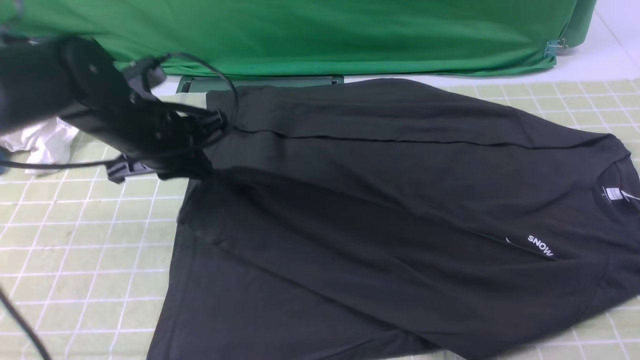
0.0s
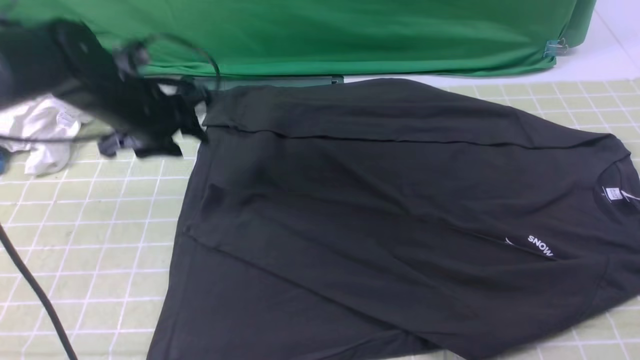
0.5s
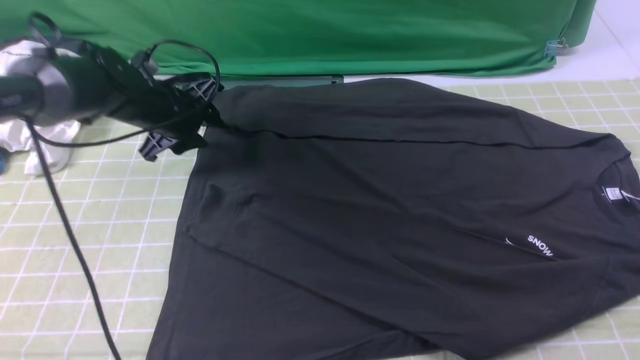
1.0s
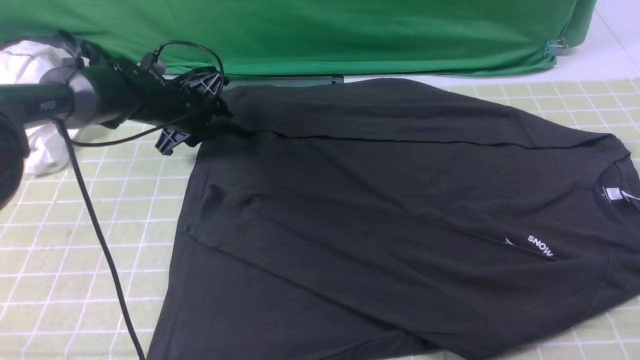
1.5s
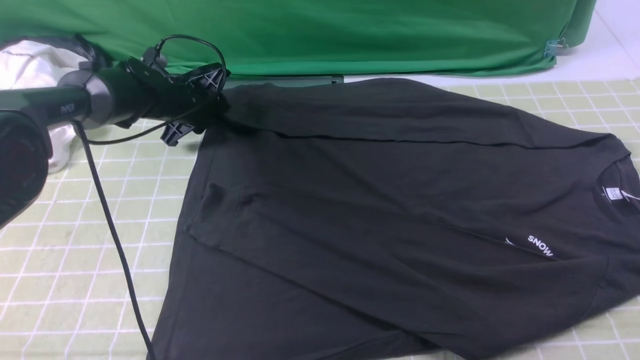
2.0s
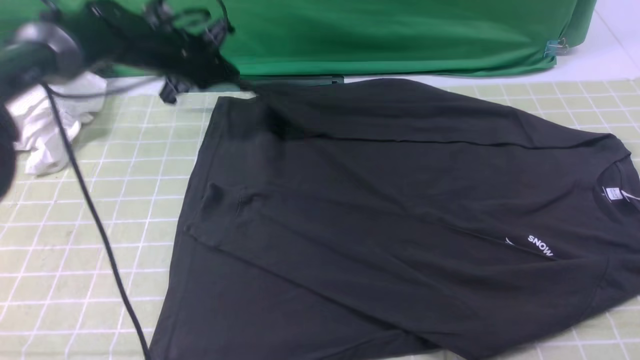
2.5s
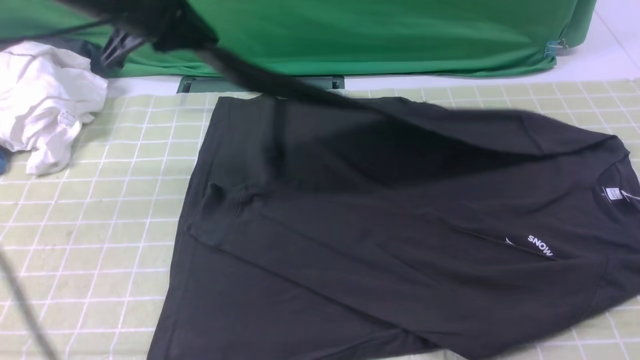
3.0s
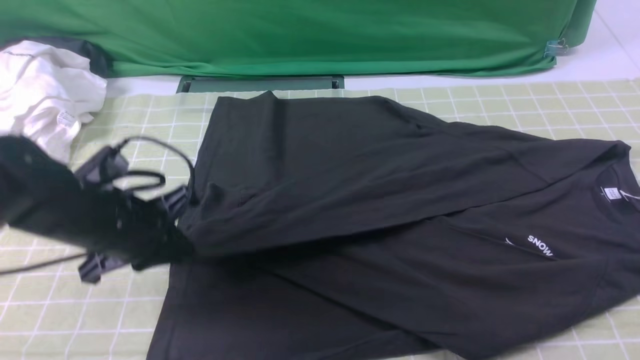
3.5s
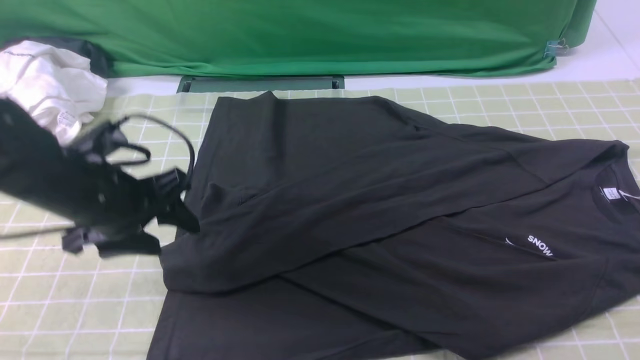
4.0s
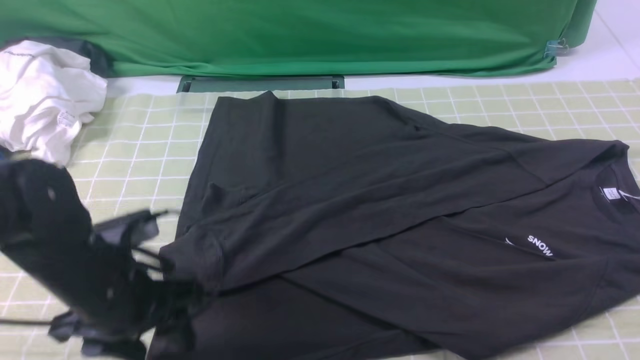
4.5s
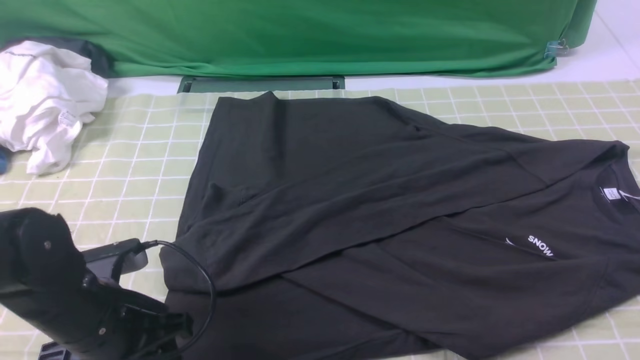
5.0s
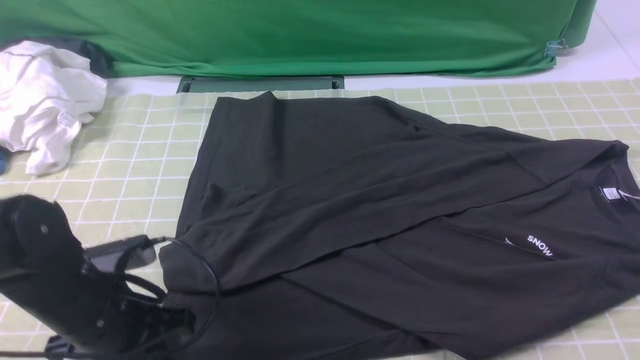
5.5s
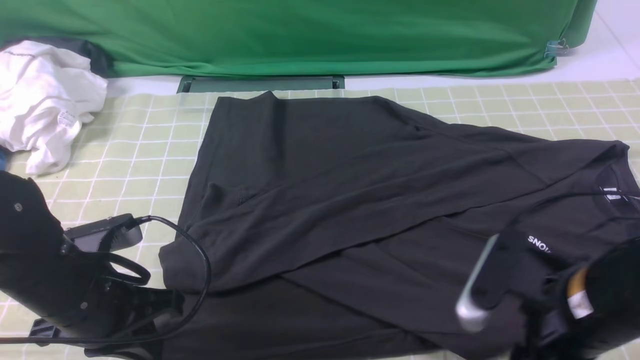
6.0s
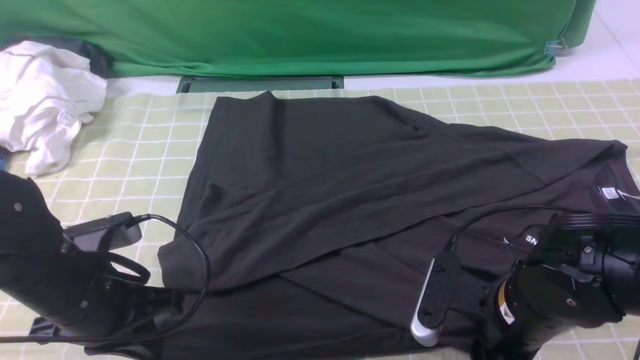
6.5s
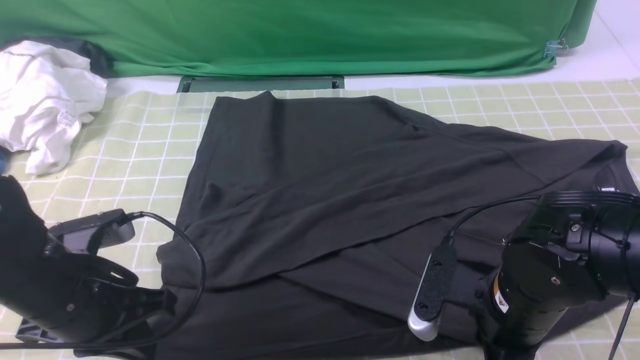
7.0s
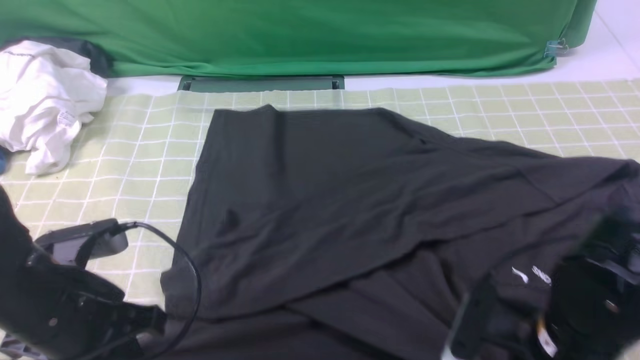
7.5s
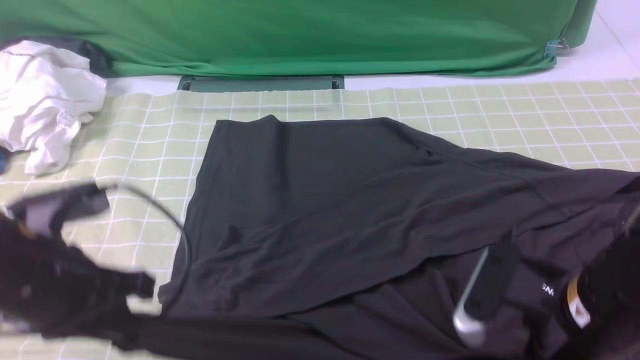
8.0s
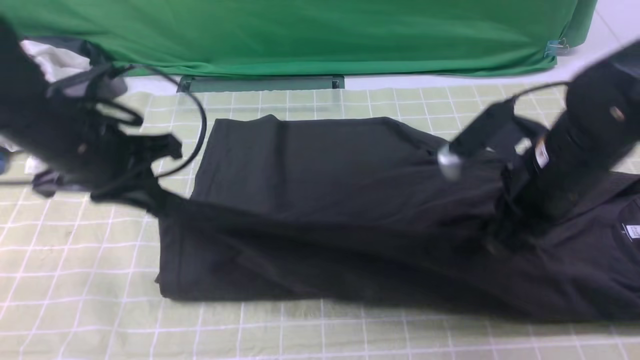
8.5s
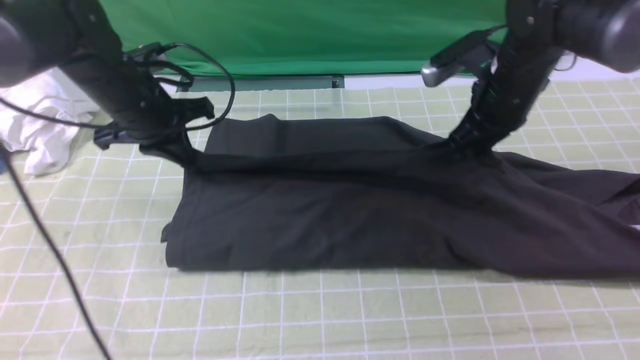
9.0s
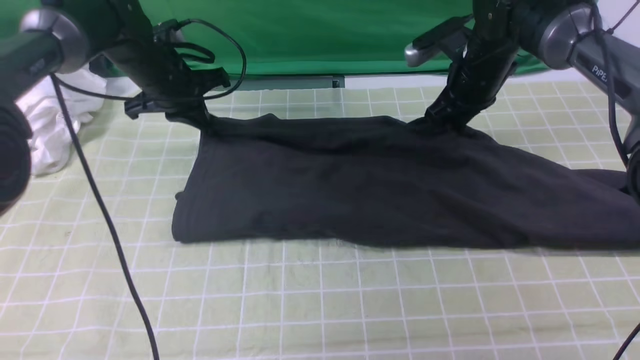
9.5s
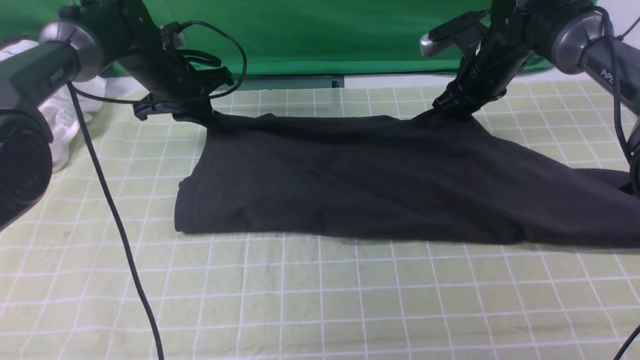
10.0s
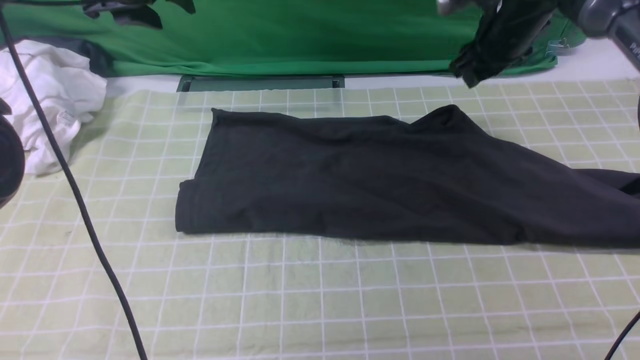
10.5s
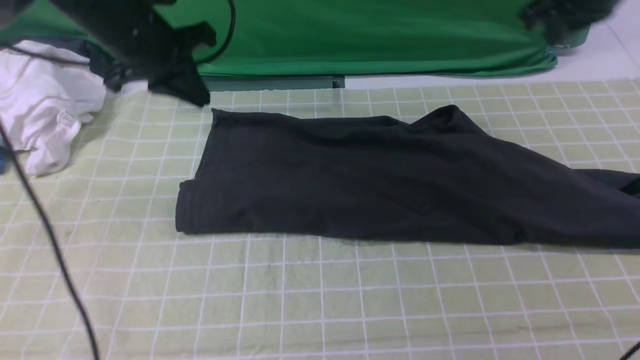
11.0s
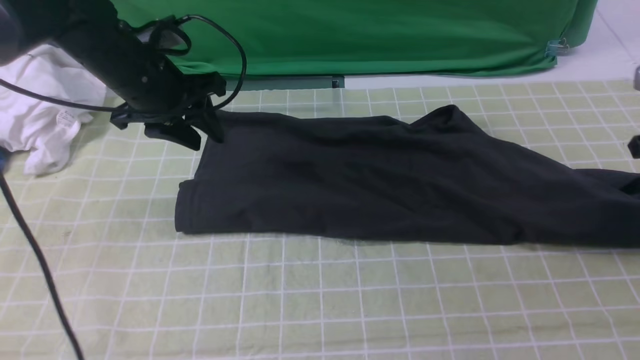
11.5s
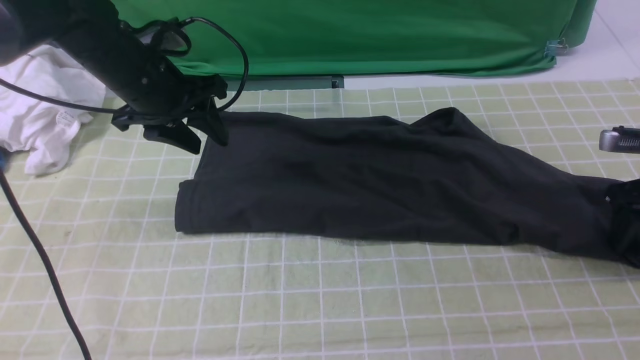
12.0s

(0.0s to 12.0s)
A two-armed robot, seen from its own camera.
Step, 0.5s - 2.0s: use the left arm to clamp the cuff farthest from it.
Step, 2.5s - 4.0s: use the left arm to drag and drop the cuff onto the cuff closest to the left arm.
Step, 4.5s - 7.0s: use both arms simultaneously to clamp the lower edge of the clothing fabric.
Step, 7.5s - 10.0s: use both arms to drag the lower edge of the fabric forward and fold it over the upper edge.
0.0s - 2.0s: The left gripper shifts approximately 20 cm forward and downward, and opens, then closes once more.
2.0s - 4.0s: The left gripper goes approximately 25 cm backward, and opens up.
4.0s - 6.0s: The right gripper moves downward and to the left, about 20 cm, and opens its fingers, while the left gripper goes some 5 cm backward, and closes.
6.0s - 8.0s: The left gripper heads upward, covering some 5 cm, while the right gripper closes.
8.0s - 10.0s: Both grippers travel together forward, roughly 35 cm. The right gripper opens.
10.0s - 12.0s: The left gripper is displaced backward and upward by about 10 cm, and opens up; the right gripper shifts some 25 cm to the right and backward, and opens its fingers.

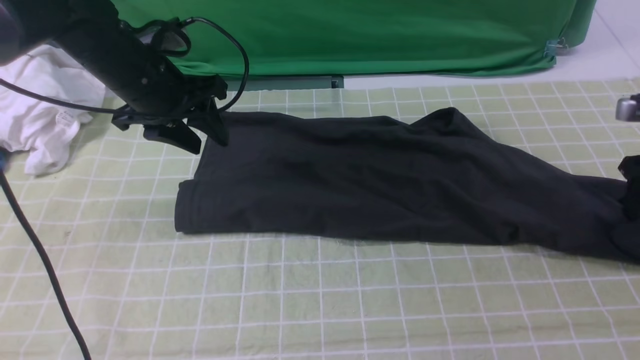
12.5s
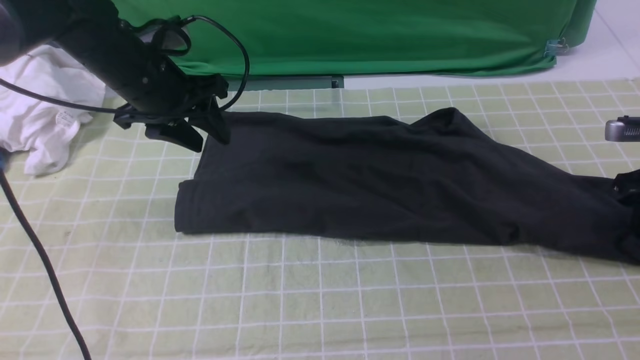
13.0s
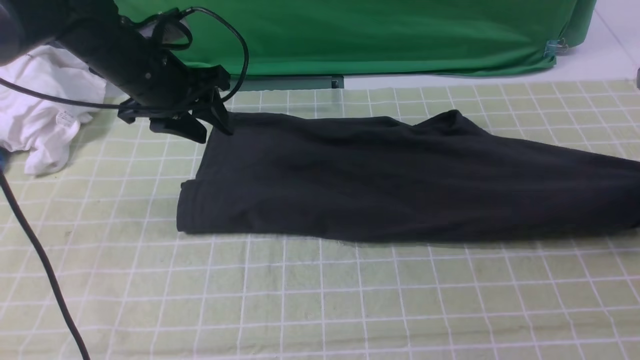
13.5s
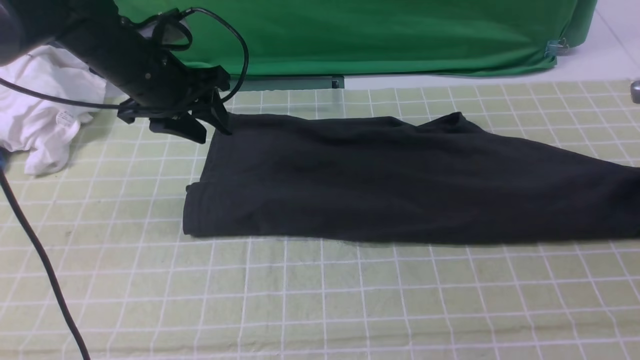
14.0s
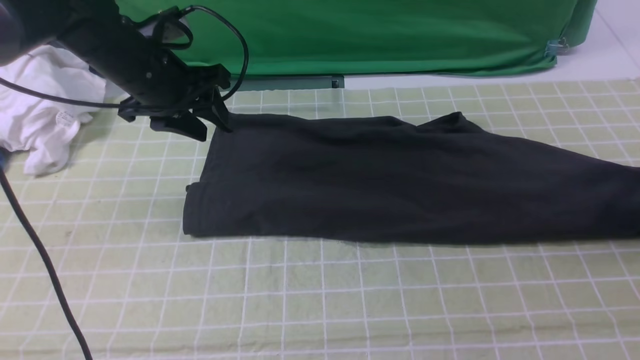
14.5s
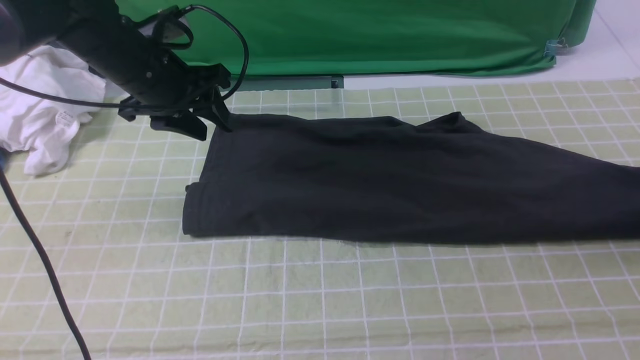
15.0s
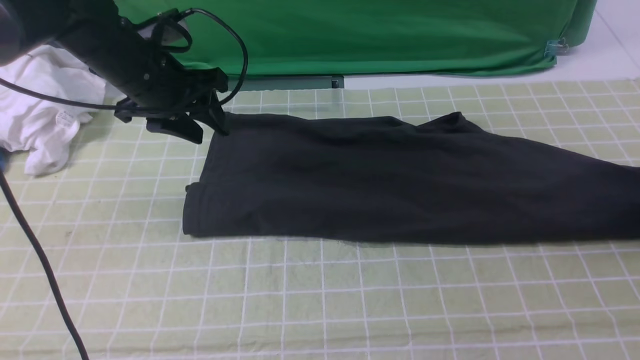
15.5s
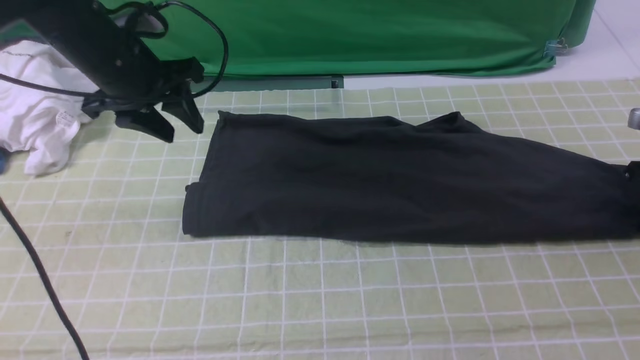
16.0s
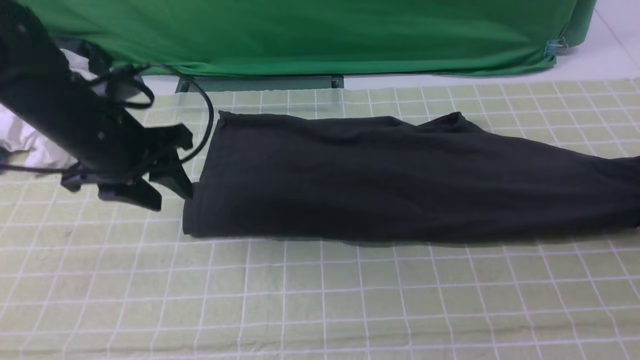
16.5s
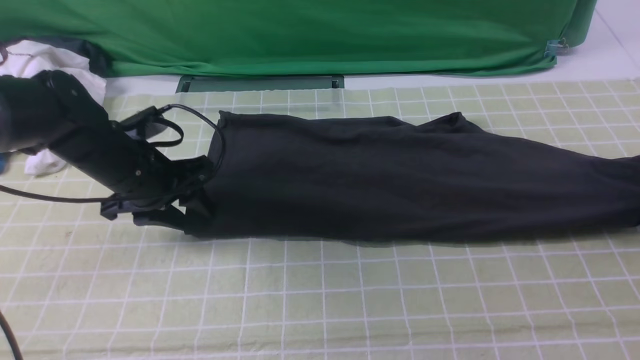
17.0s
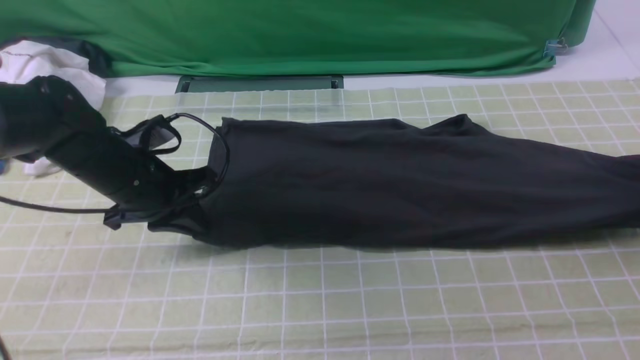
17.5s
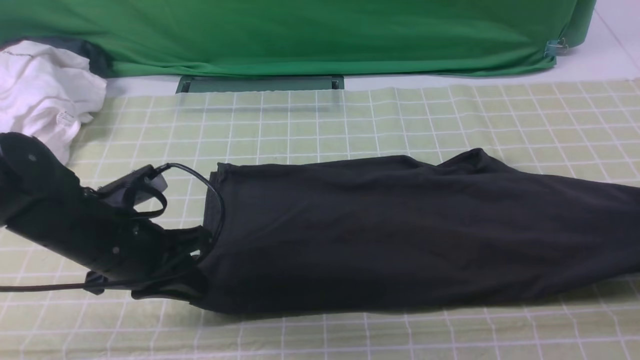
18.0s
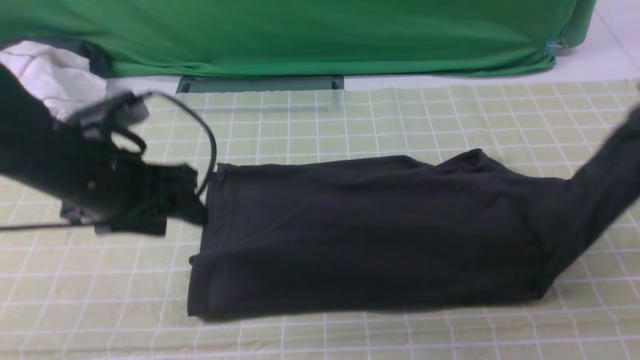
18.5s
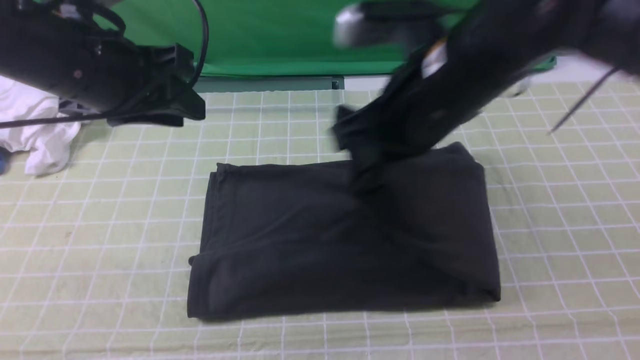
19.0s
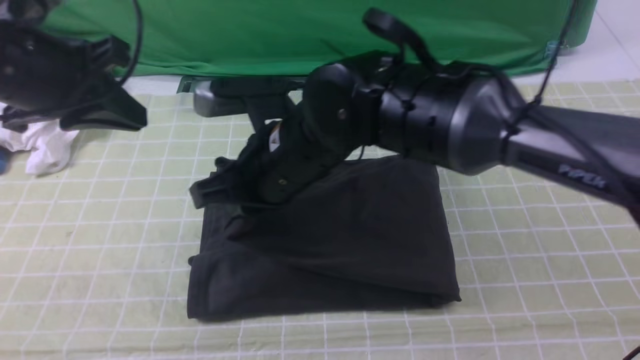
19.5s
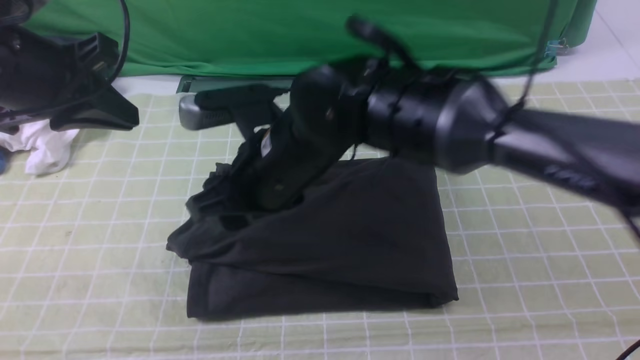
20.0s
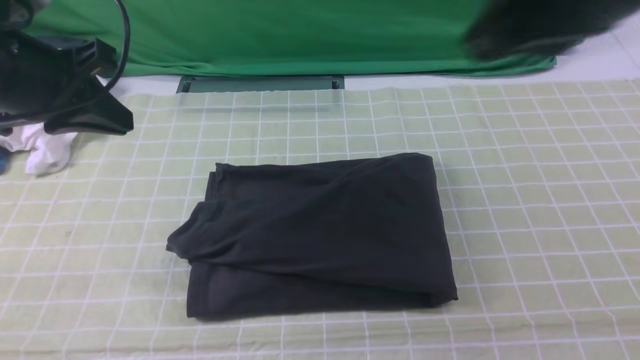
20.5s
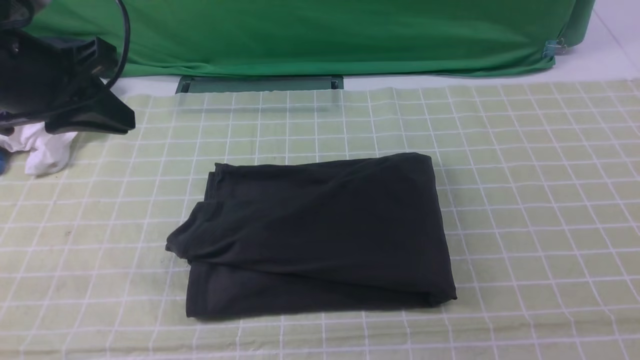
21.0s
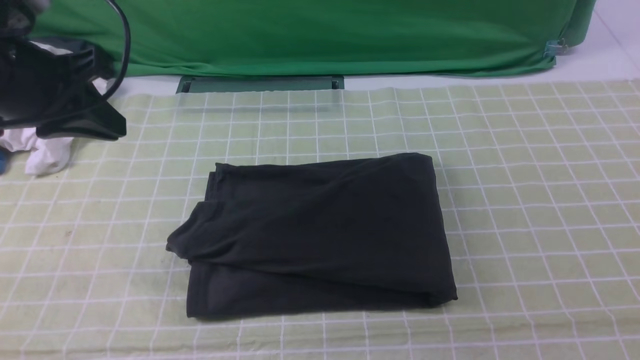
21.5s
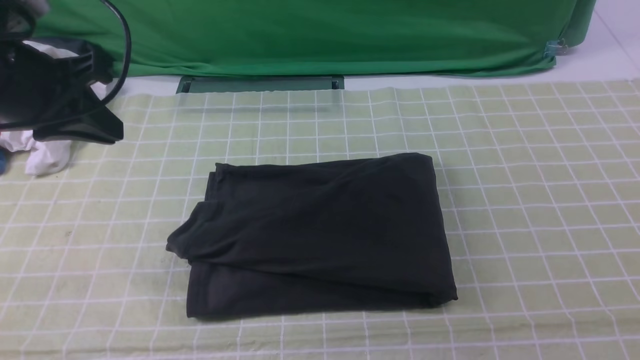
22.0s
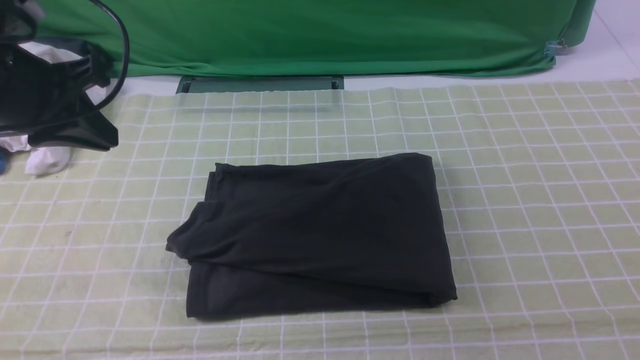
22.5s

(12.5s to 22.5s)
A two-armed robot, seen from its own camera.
Step, 12.5s - 16.0s: use the right arm to clamp the right edge of the fabric.
Step, 16.5s - 20.0s: use the right arm to drag the right edge of the fabric to the left and folds it over the left edge.
12.5s - 14.5s: The right gripper closes its fingers.
14.5s - 16.5s: The right gripper closes. The left gripper moves backward, about 10 cm.
16.5s - 18.5s: The right gripper goes roughly 20 cm upward, to the left and backward; the left gripper is displaced backward by about 5 cm, and closes, then opens again.
18.5s - 20.5s: The right gripper heads to the left, backward and upward, covering roughly 25 cm, and opens and closes again, while the left gripper heads upward and to the left, covering approximately 10 cm, and closes.
20.5s - 22.5s: The right gripper is displaced downward, to the right and backward by some 30 cm.
